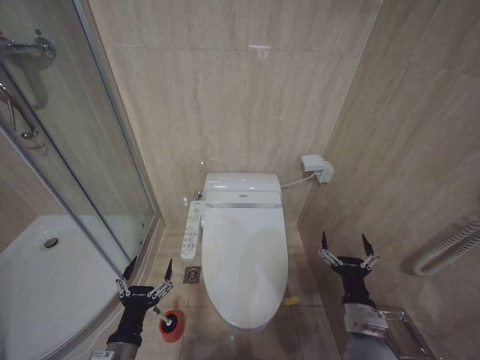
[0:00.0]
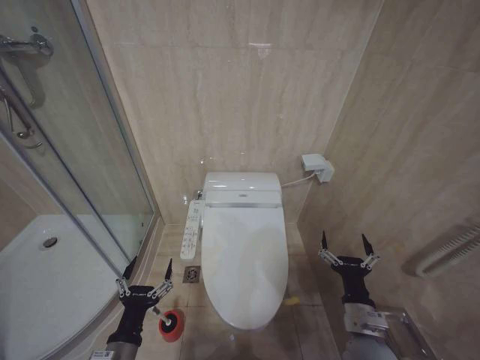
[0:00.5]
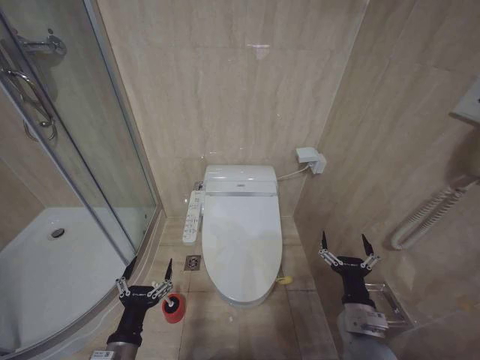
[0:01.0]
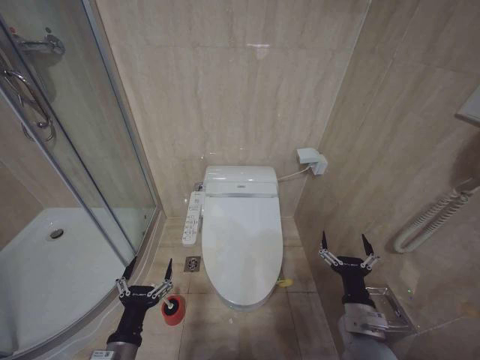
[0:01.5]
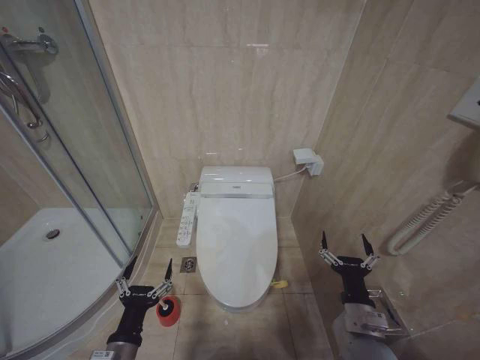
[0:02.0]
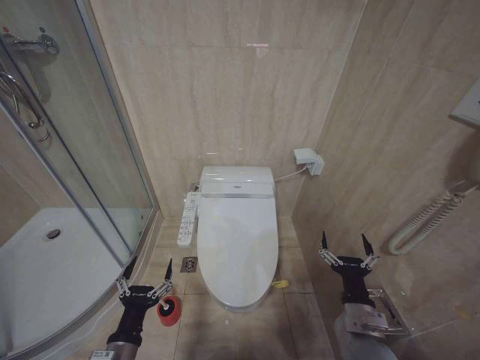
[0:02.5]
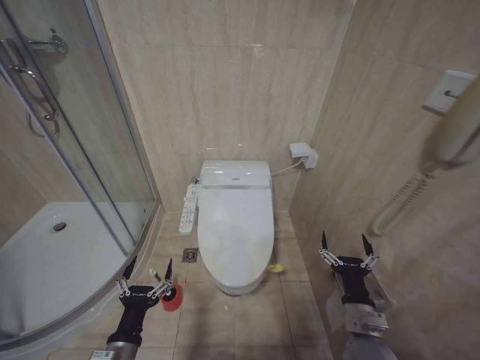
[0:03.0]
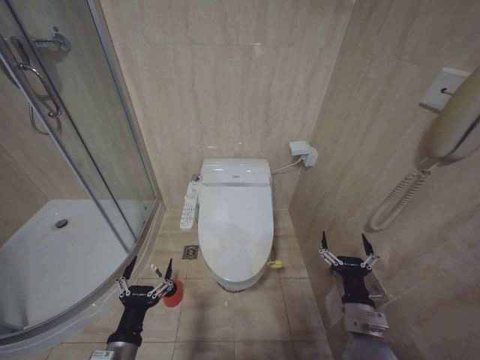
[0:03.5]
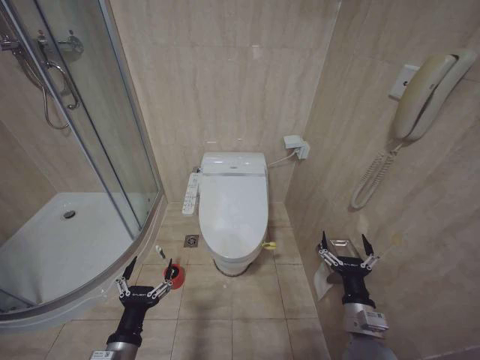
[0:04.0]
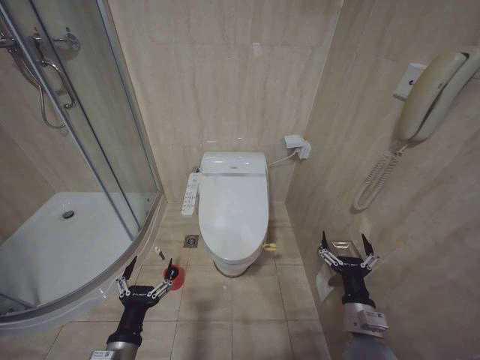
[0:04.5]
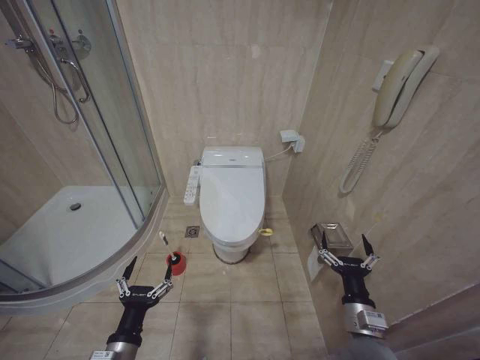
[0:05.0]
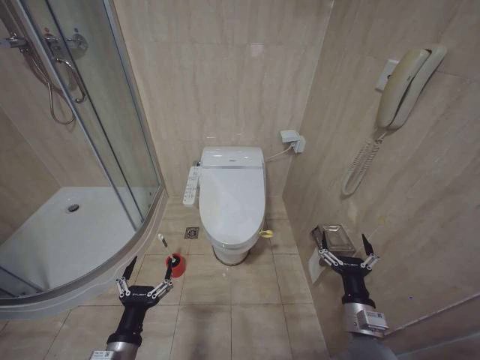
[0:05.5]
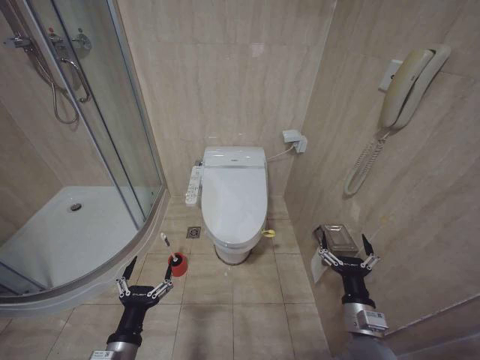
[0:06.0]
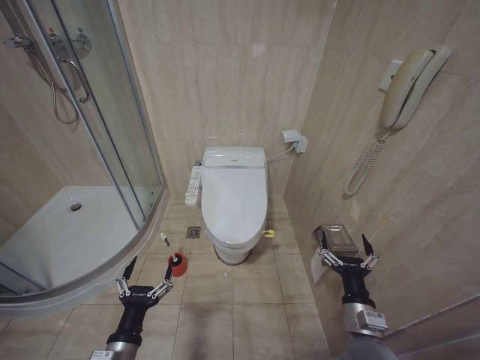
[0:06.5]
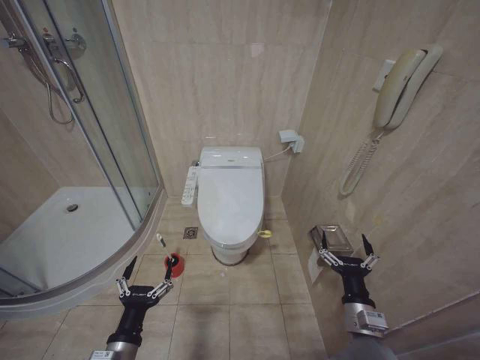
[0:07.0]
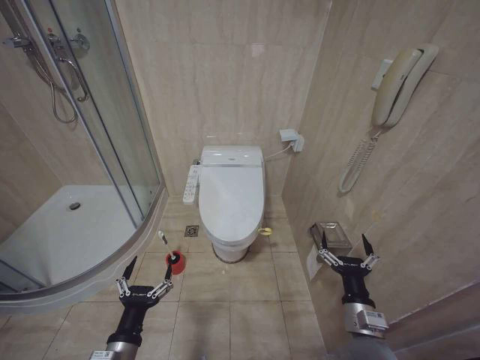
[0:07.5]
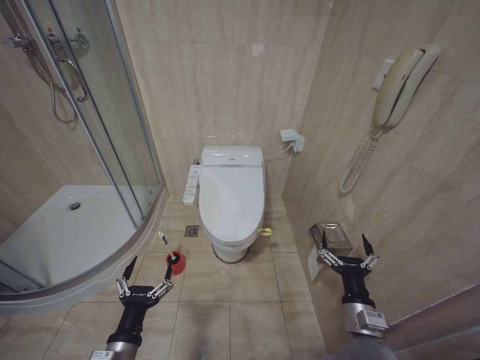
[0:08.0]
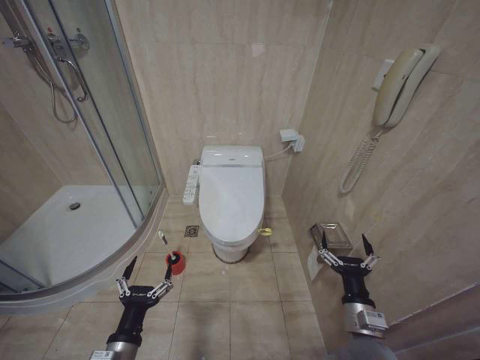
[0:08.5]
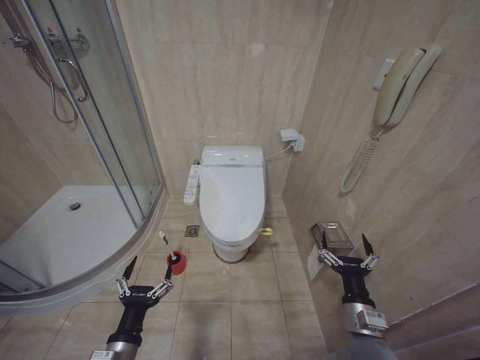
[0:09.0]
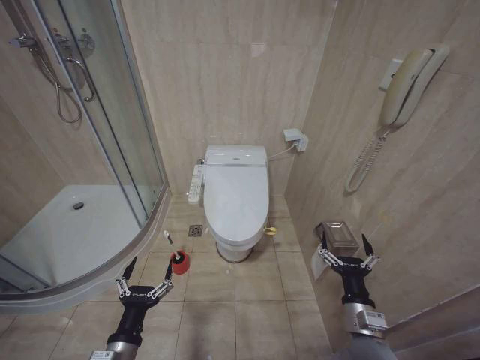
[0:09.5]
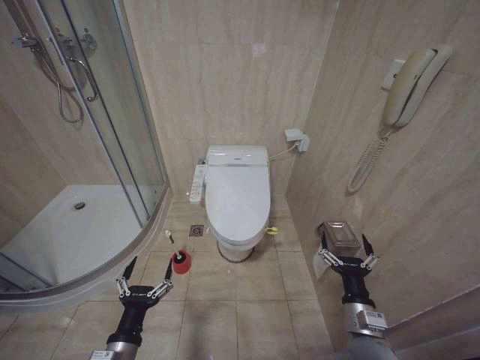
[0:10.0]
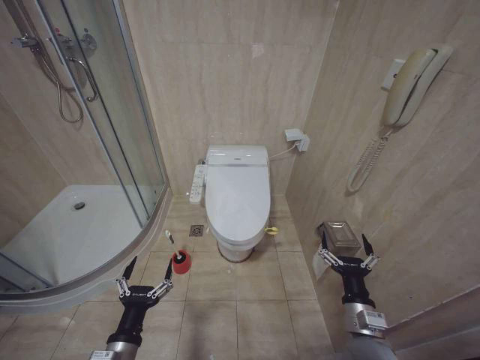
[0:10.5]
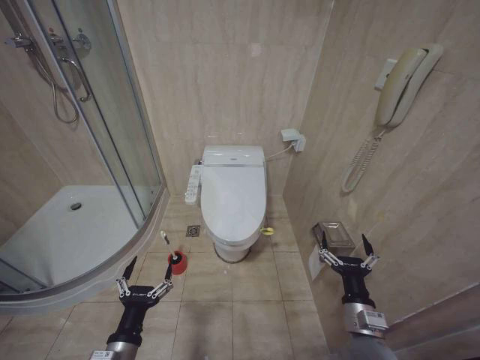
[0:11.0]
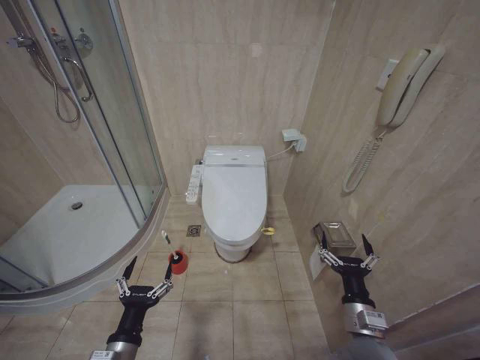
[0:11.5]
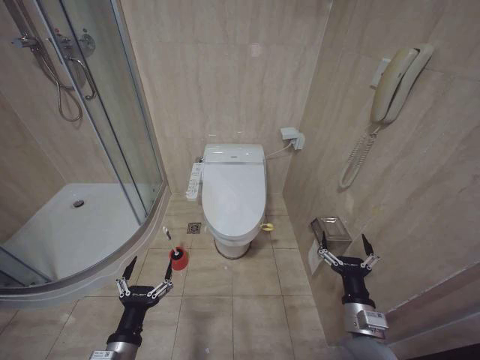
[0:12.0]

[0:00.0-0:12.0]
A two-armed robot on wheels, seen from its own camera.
Task of the whole recording: Open the toilet lid, clean the toilet bowl with a toilet brush, close the toilet lid, and flush.
0:00.0 to 0:12.0: Both grippers stay about where they are.

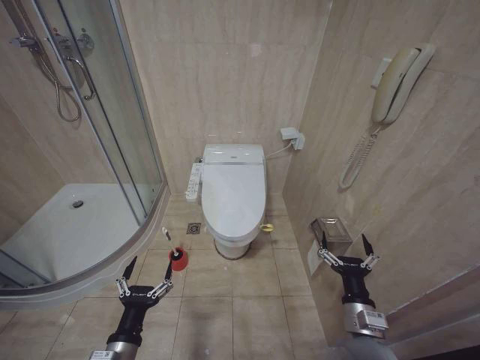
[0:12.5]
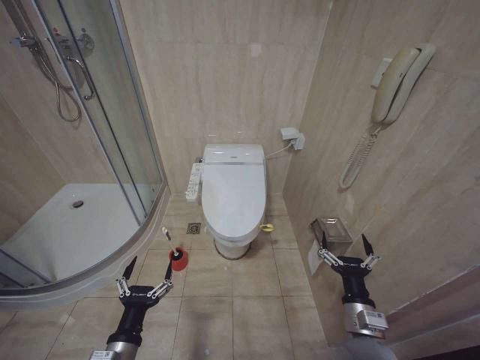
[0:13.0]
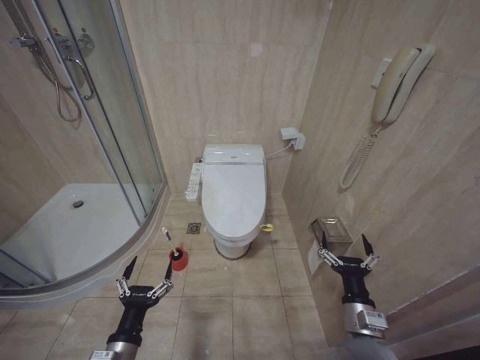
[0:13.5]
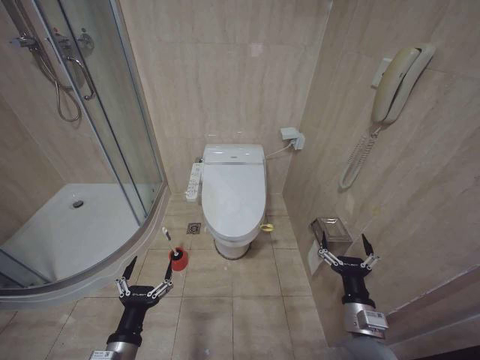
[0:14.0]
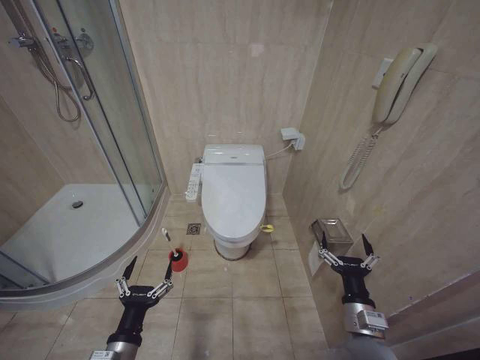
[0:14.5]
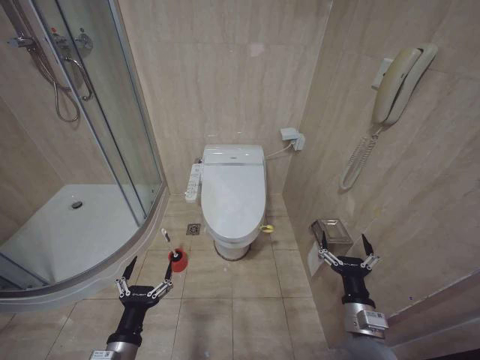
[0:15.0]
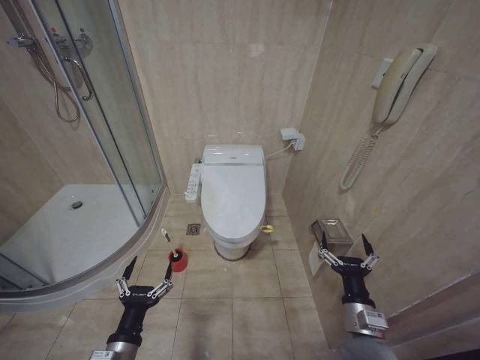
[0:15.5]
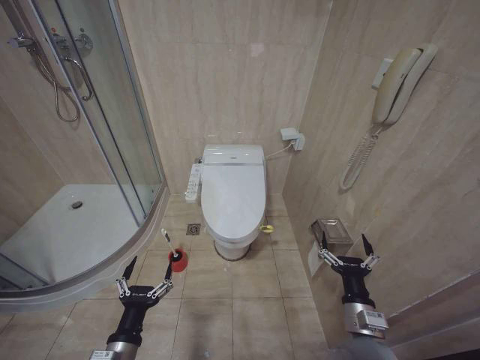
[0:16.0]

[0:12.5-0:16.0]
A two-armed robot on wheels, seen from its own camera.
Task of the whole recording: Open the toilet lid, clean the toilet bowl with a toilet brush, close the toilet lid, and flush.
0:12.5 to 0:16.0: The two grippers keep their place.

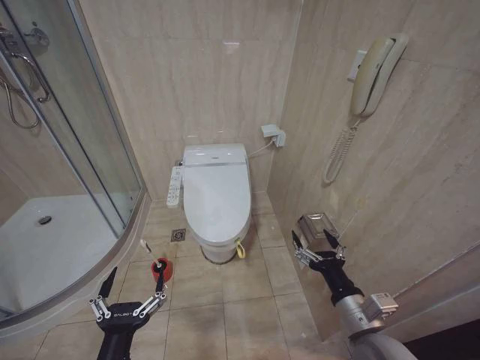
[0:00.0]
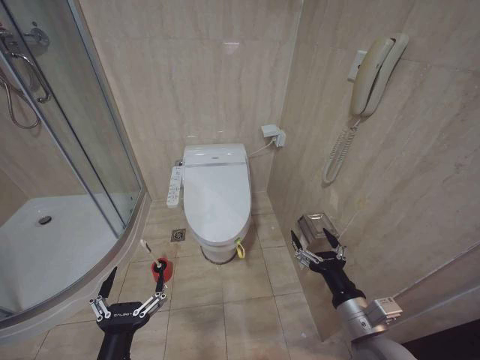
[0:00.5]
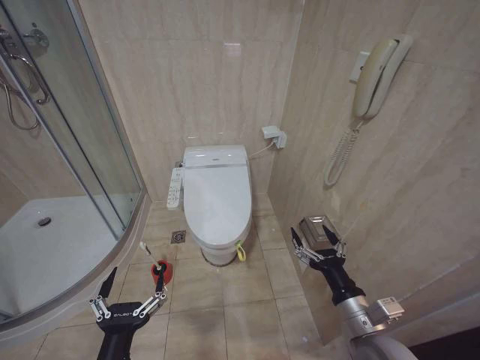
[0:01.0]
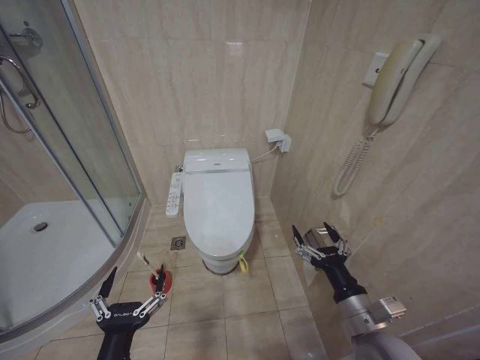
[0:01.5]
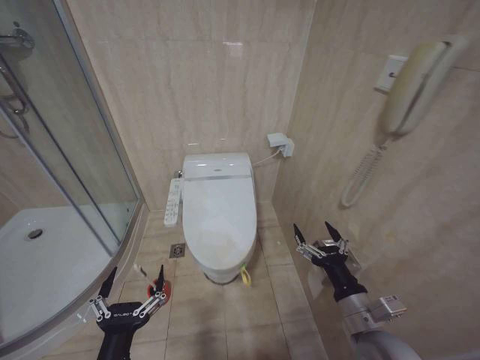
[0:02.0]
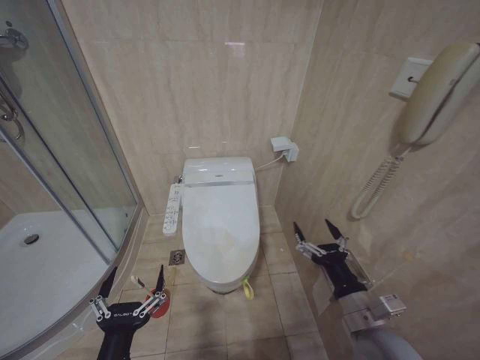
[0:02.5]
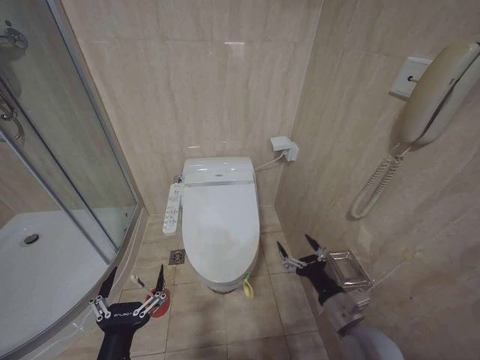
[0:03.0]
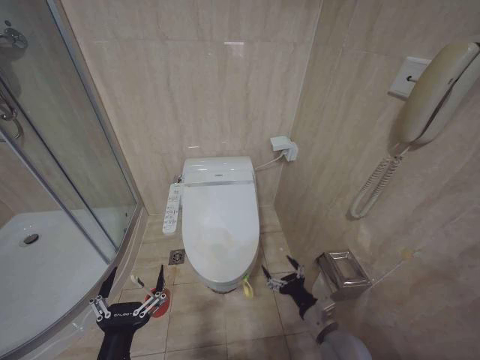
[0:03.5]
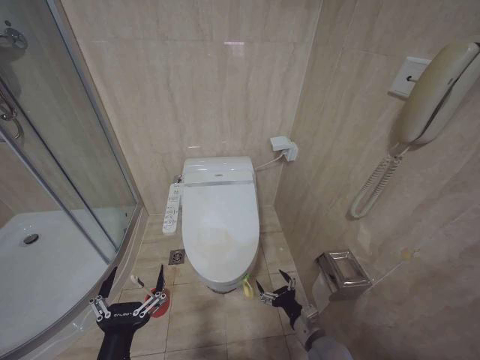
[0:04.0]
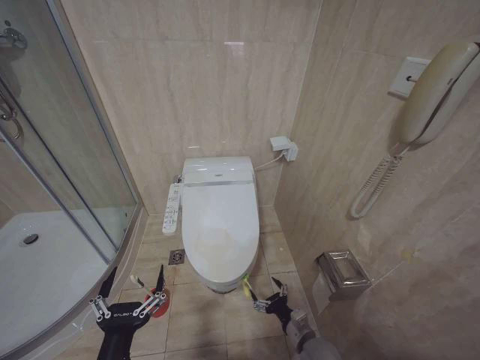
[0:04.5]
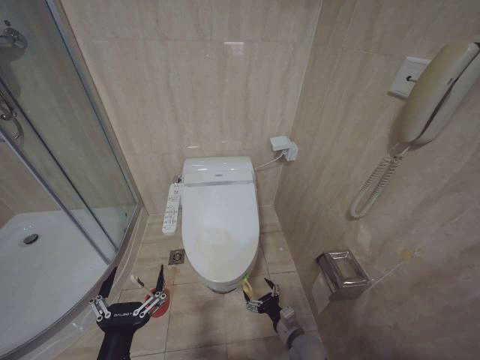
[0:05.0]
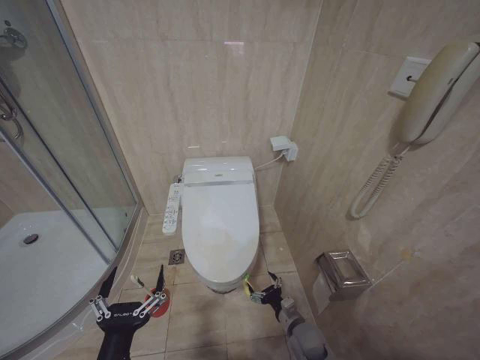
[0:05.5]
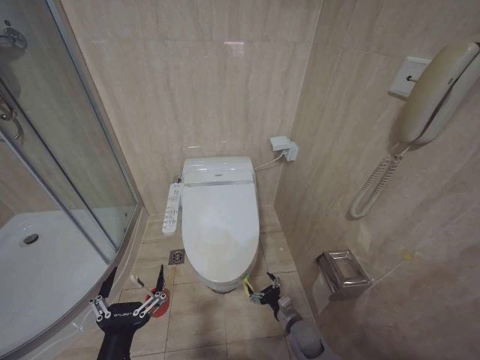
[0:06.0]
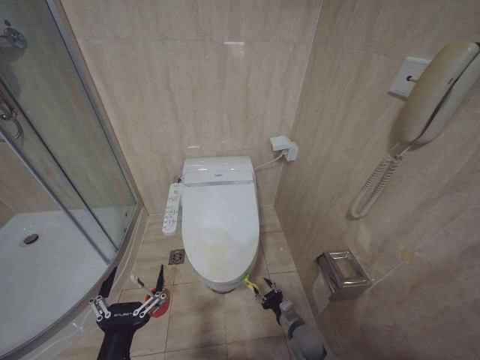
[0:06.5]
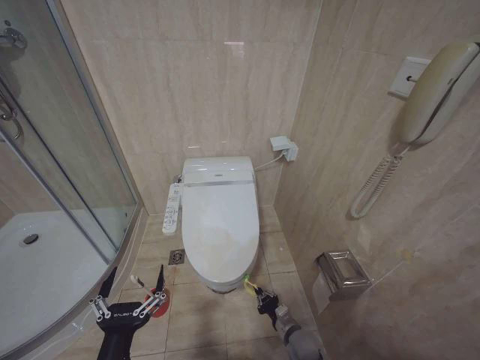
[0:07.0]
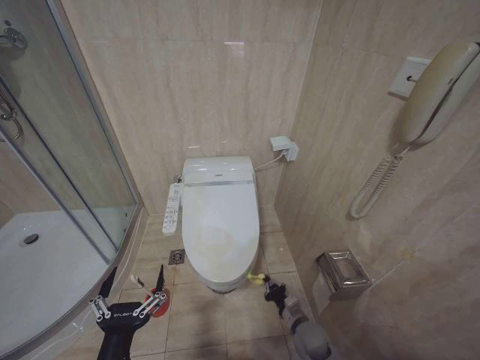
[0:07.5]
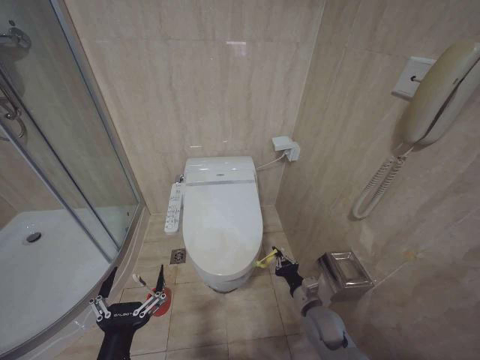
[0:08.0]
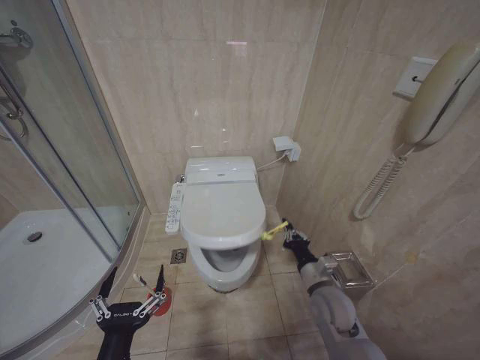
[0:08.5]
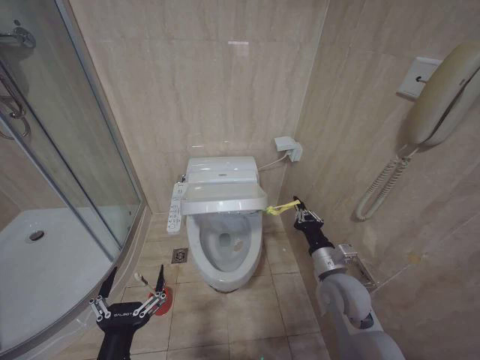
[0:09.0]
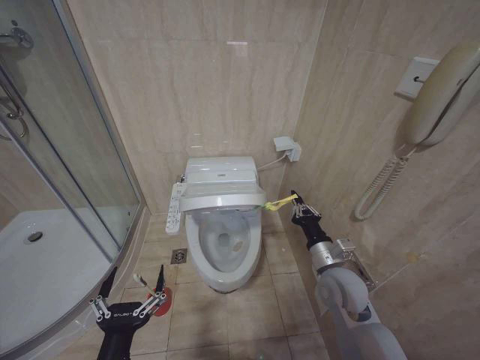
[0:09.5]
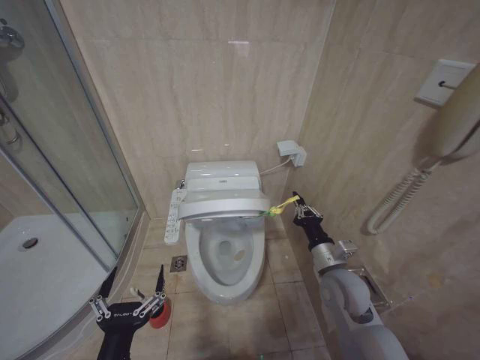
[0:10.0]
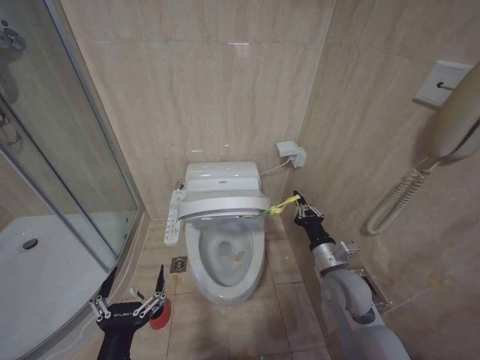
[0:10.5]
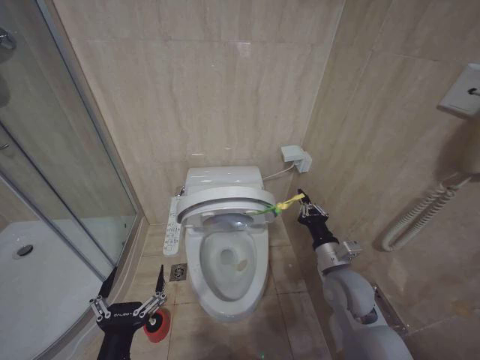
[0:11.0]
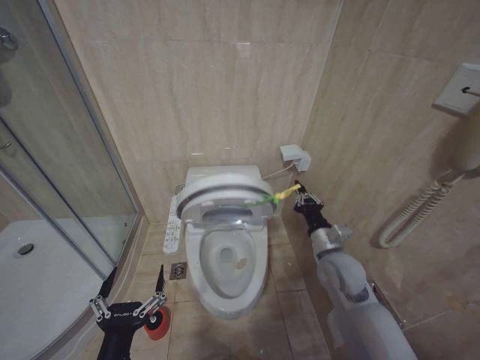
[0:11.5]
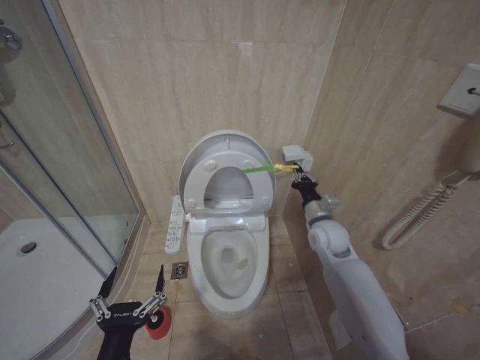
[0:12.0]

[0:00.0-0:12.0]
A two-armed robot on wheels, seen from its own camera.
Task of the whole recording: Open the toilet lid, clean the toilet bowl with a toilet brush, close the toilet lid, and flush.
0:02.0 to 0:04.0: The right gripper goes roughly 20 cm downward.
0:04.0 to 0:06.0: The right gripper travels downward and forward by approximately 10 cm.
0:06.0 to 0:08.0: The right gripper heads upward, covering approximately 10 cm, and closes up.
0:08.0 to 0:10.0: The right gripper goes roughly 15 cm upward.
0:10.0 to 0:12.0: The right gripper moves forward, about 10 cm.
